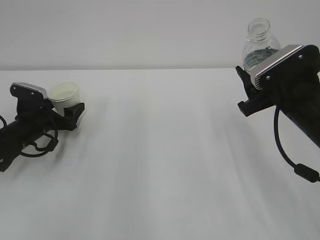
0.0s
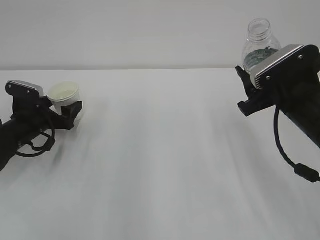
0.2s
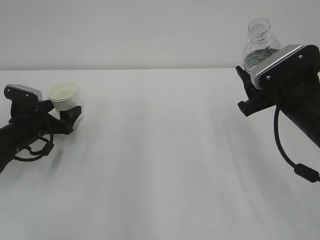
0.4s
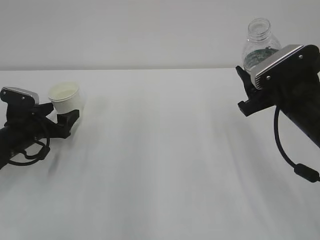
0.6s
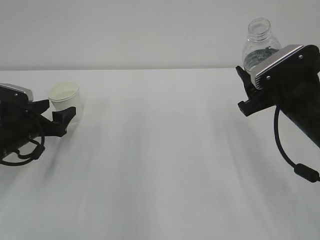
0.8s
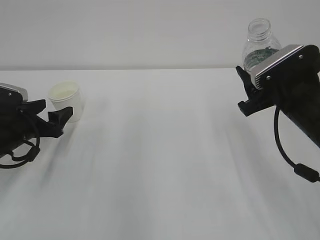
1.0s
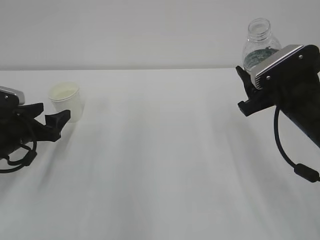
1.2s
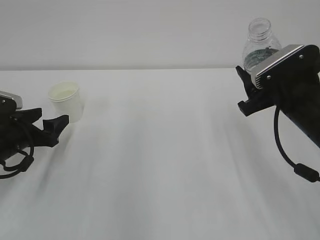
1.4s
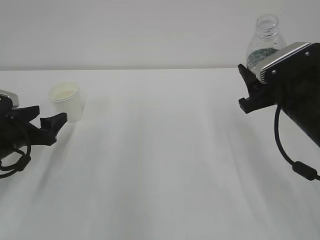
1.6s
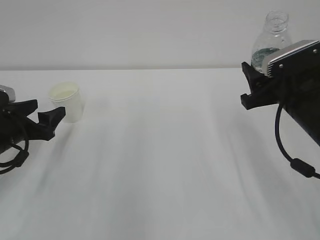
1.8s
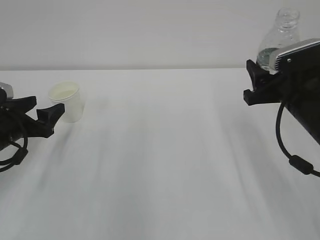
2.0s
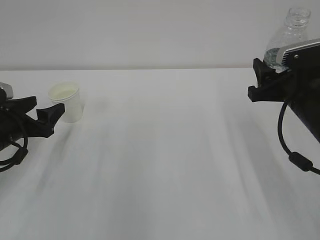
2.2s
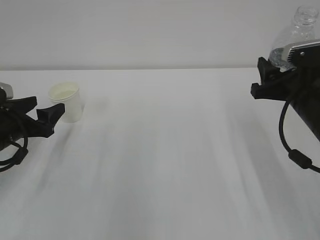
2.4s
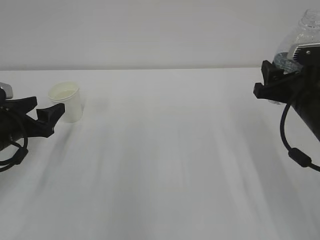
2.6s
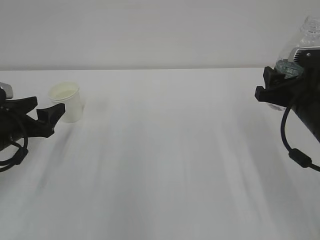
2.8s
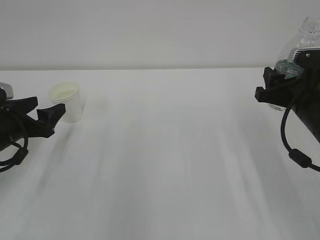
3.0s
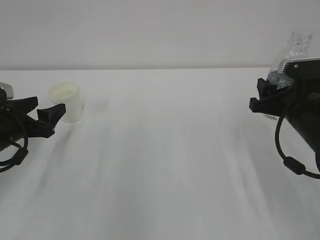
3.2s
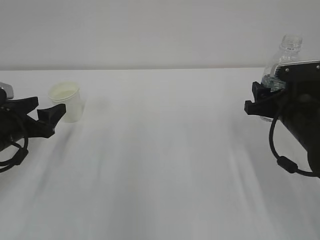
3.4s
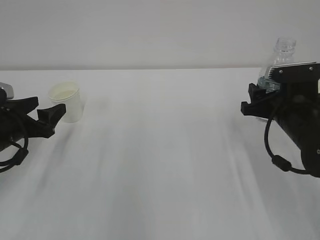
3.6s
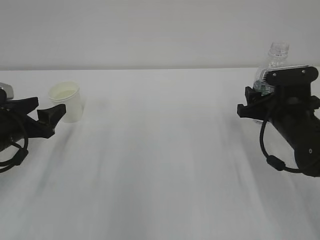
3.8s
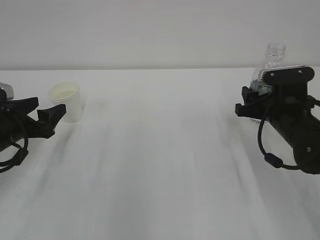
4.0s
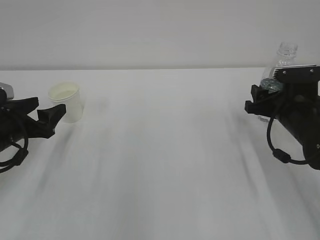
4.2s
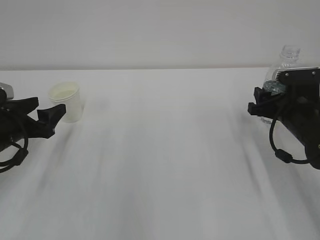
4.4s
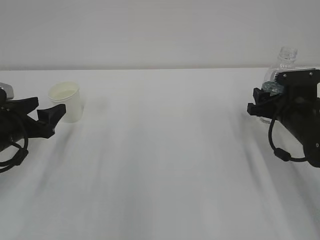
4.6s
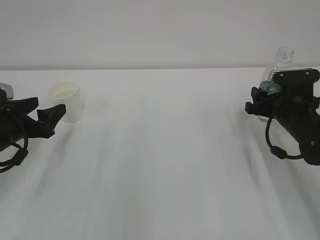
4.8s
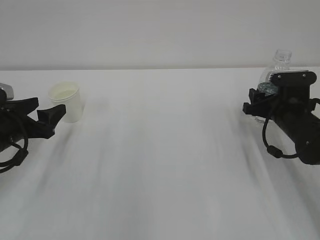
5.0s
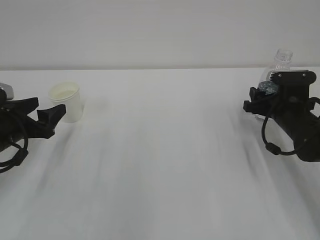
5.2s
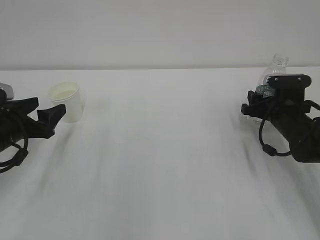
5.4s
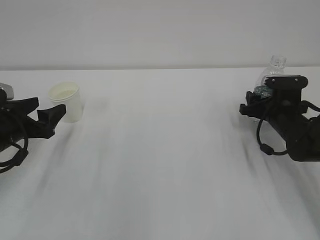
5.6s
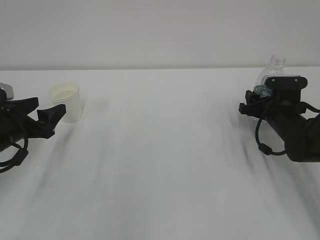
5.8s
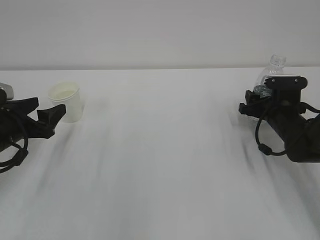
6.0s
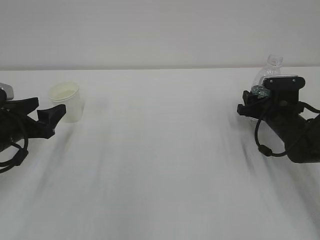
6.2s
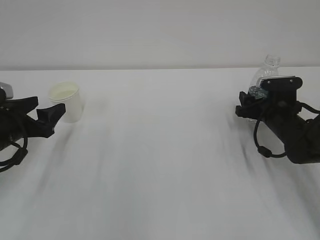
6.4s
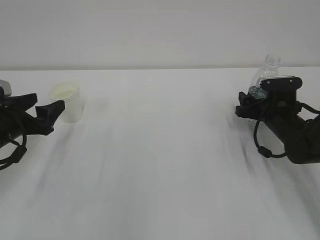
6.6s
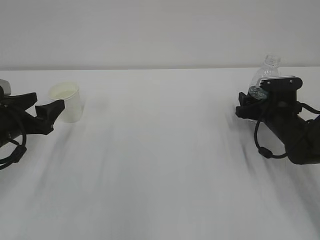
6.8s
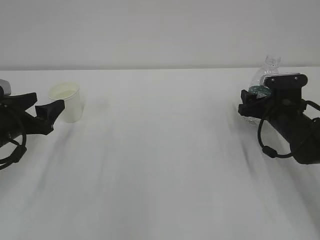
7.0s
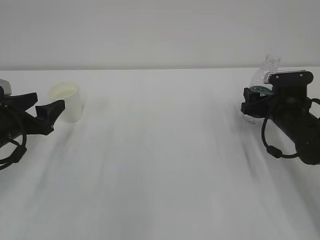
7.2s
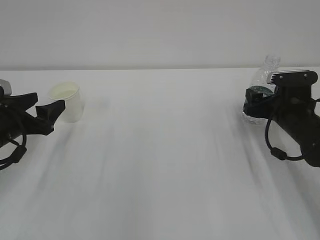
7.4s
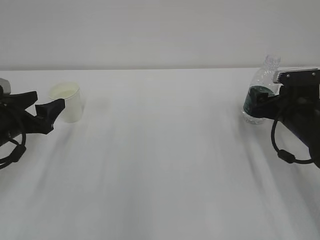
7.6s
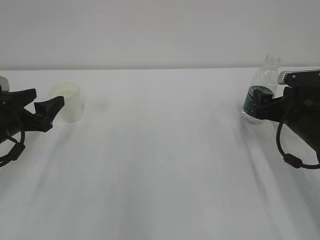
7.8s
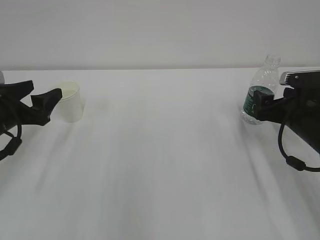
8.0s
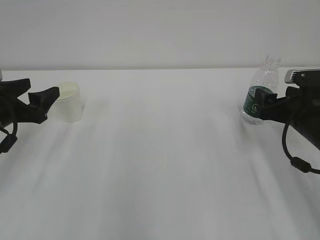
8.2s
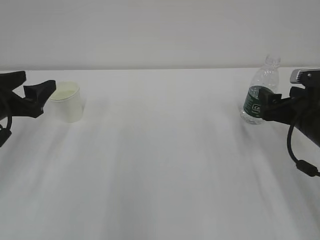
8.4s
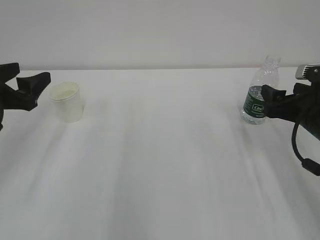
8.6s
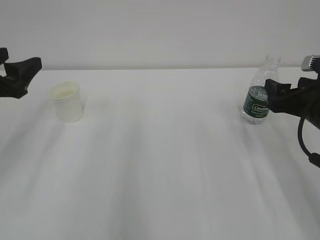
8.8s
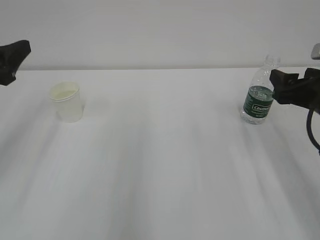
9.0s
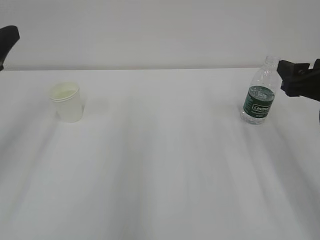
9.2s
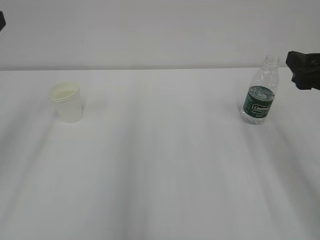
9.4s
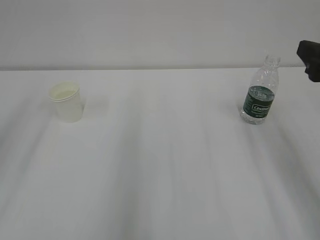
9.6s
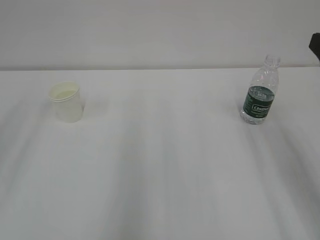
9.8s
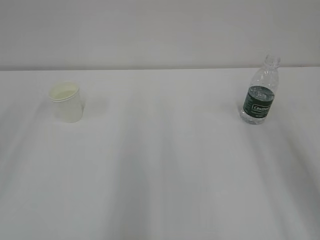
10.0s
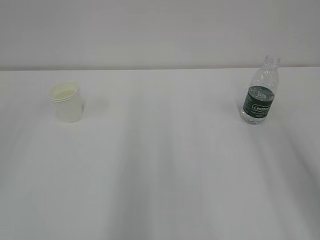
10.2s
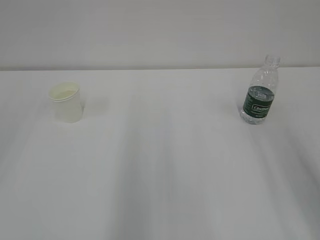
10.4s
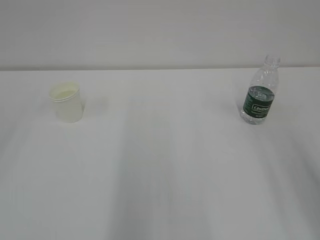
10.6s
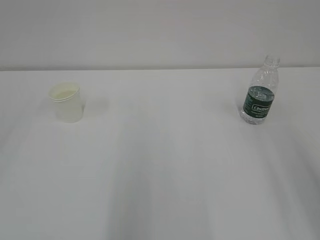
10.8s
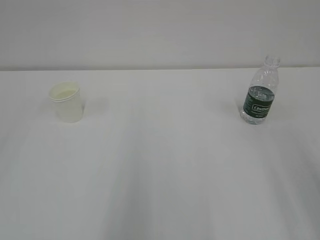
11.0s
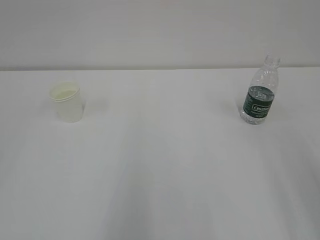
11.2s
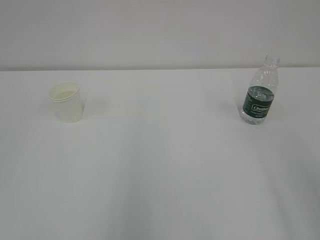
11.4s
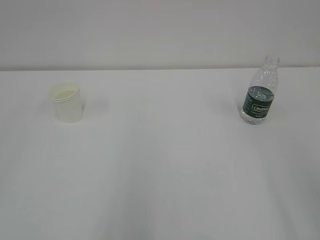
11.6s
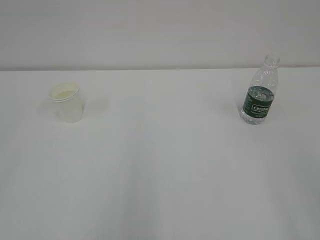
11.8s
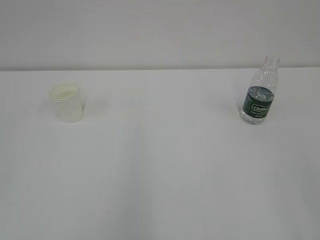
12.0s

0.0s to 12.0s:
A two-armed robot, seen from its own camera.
0.0s to 1.6s: The left gripper travels backward by about 10 cm.
3.0s to 4.4s: The right gripper goes about 5 cm downward.
4.4s to 6.0s: The right gripper goes about 5 cm forward.
6.0s to 7.6s: The right gripper moves approximately 5 cm, and opens up.
7.6s to 9.0s: The left gripper shifts some 10 cm upward; the right gripper travels upward and backward by some 10 cm.
9.0s to 10.4s: The two grippers go some 20 cm backward and upward.

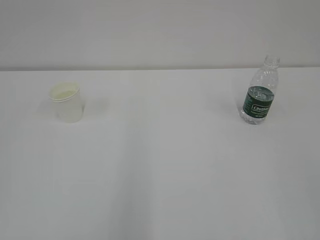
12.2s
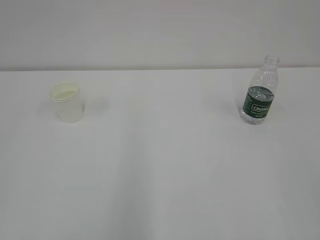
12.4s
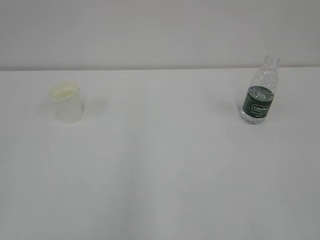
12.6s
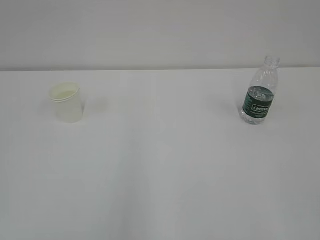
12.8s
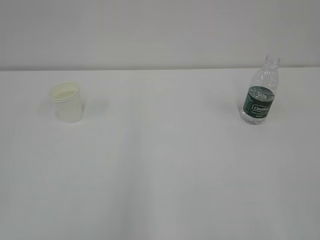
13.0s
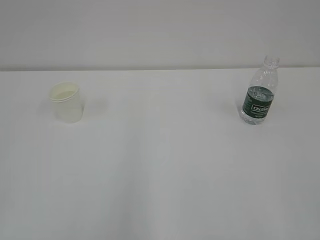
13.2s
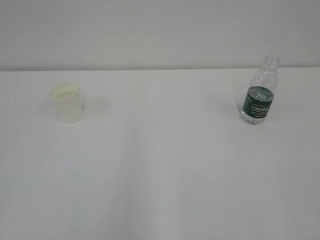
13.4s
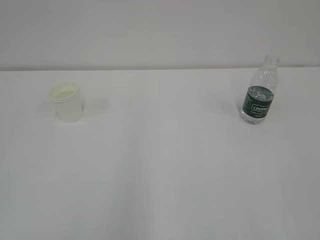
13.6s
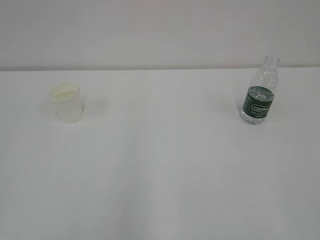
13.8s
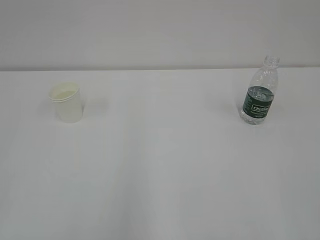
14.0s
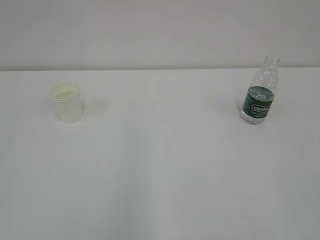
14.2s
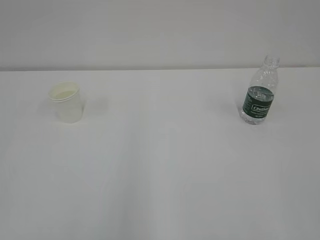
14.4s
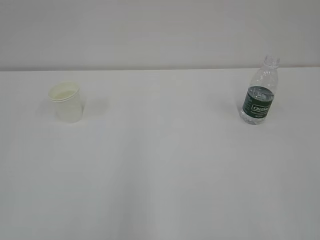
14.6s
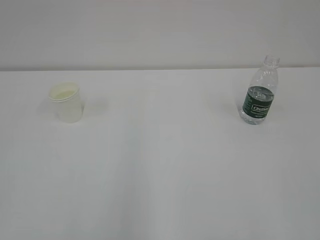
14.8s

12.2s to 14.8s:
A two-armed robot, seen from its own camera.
13.4s to 14.8s: The two grippers keep their place.

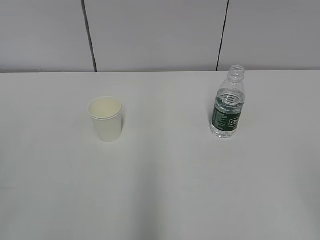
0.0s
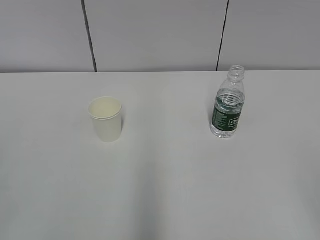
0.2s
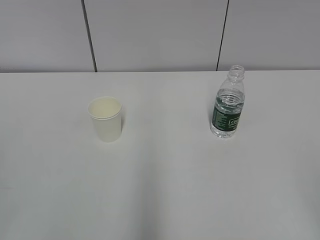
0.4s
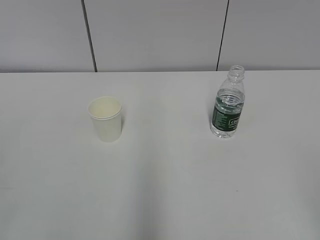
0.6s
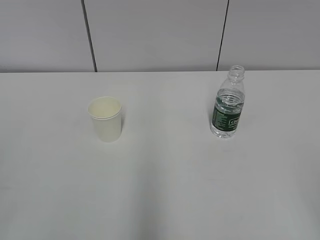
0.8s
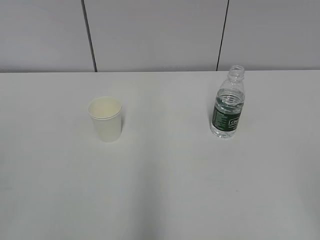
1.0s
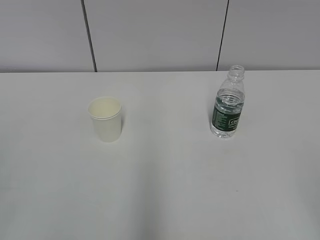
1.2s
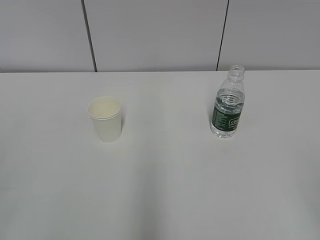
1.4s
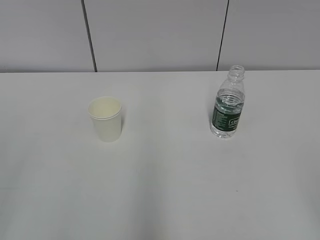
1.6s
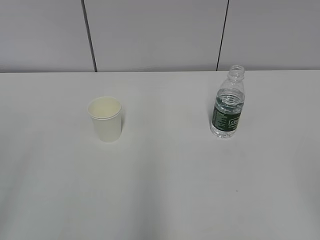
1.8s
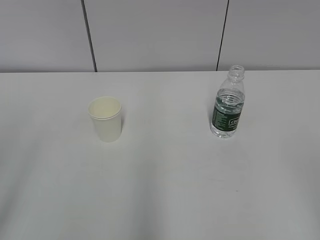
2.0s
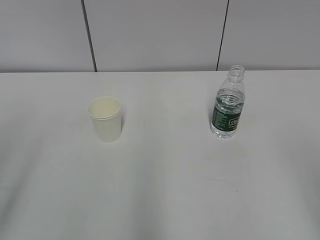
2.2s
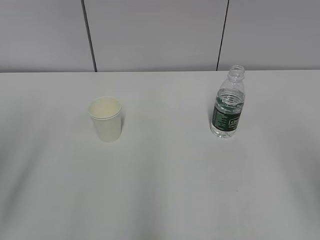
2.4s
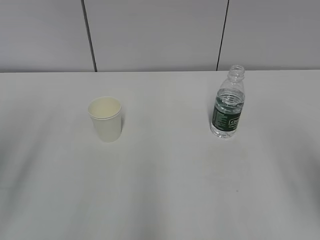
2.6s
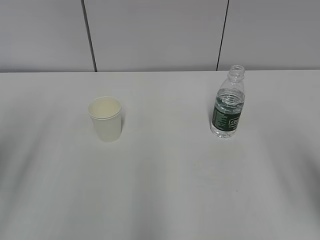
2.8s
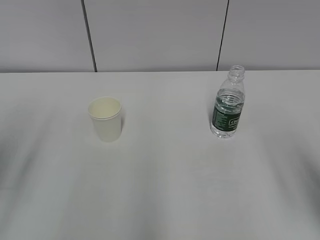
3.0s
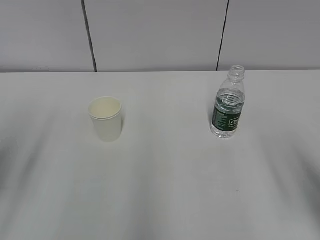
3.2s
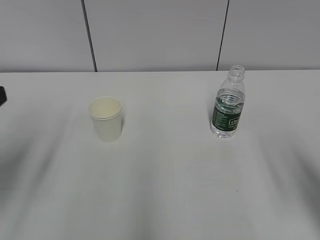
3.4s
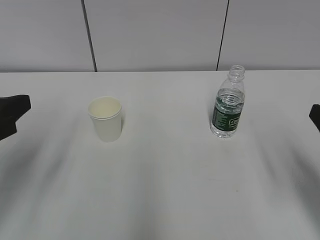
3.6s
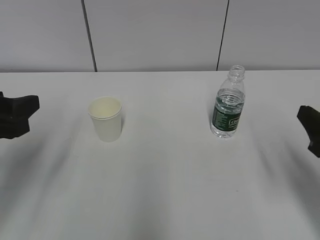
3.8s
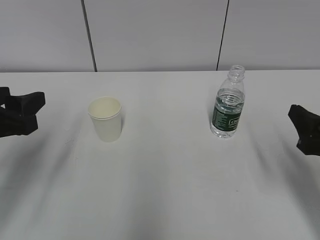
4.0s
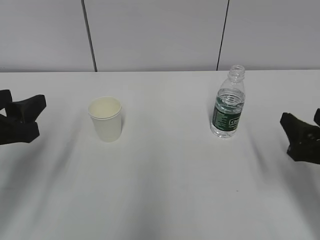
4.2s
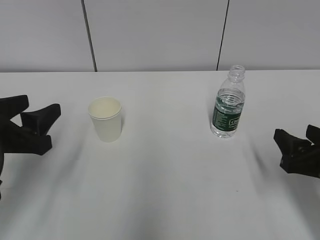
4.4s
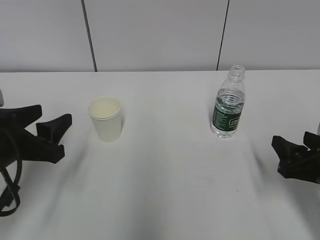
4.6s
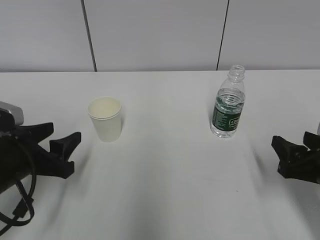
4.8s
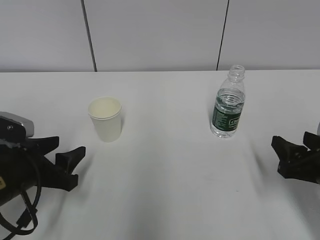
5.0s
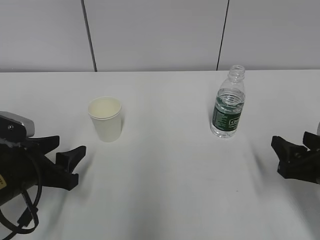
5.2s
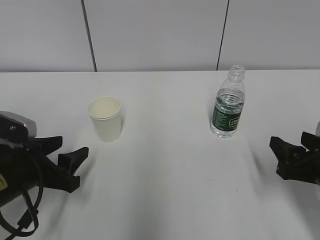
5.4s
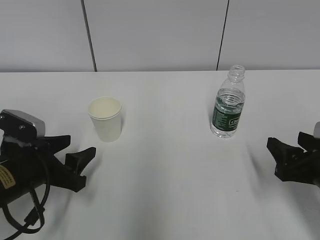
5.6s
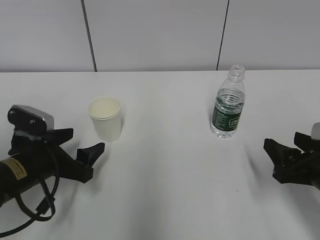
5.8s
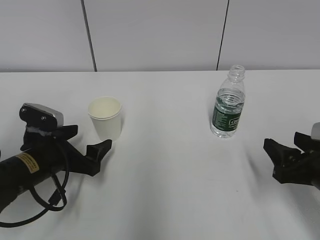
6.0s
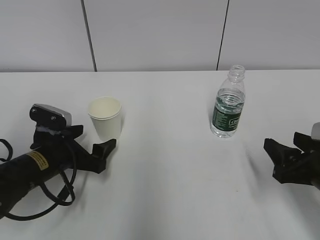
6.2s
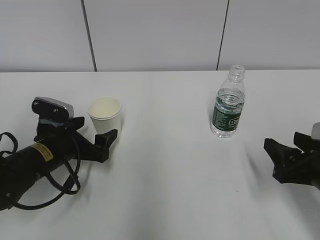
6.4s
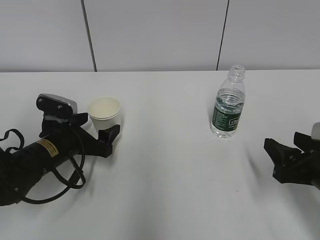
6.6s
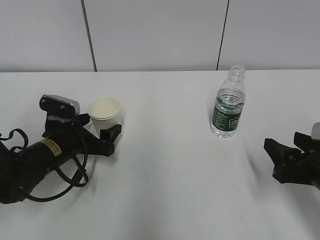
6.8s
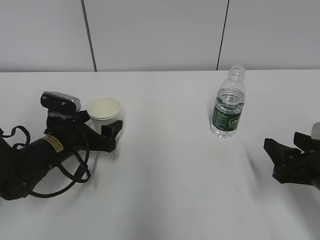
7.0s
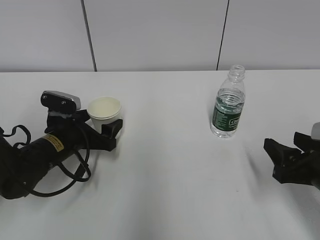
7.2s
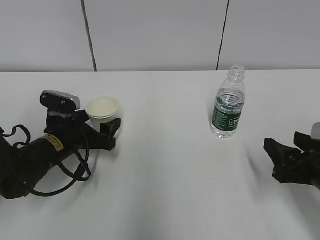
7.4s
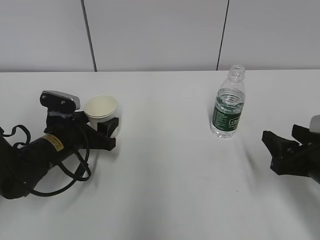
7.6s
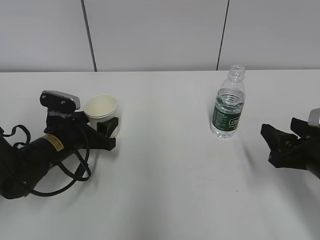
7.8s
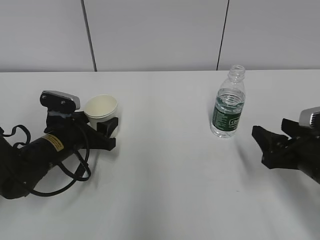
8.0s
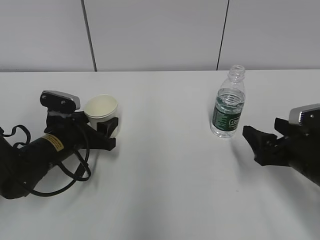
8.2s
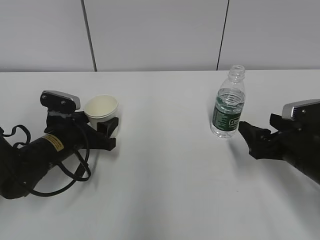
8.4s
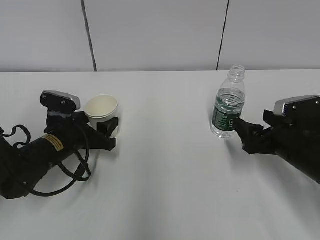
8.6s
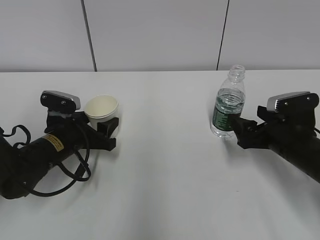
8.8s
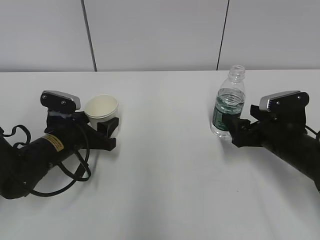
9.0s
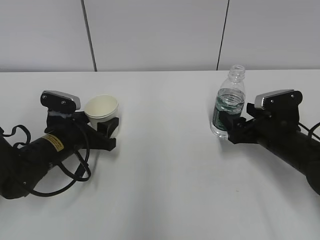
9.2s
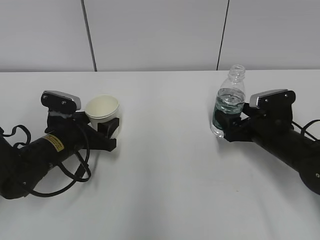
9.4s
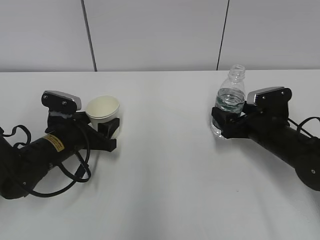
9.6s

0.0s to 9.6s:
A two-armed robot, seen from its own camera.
Step, 0.0s to 9.0s: Grab the paper cup with the left hand.
1.6s to 3.2s: The two grippers go about 15 cm forward.
3.2s to 4.8s: The left gripper shifts about 15 cm downward, to the right and forward; the right gripper is displaced downward and forward by approximately 15 cm.
4.8s to 6.4s: The left gripper heads forward, covering some 10 cm, and opens up.
6.4s to 8.0s: The left gripper closes up.
8.0s to 9.6s: The right gripper heads forward, covering approximately 10 cm, and opens up.
